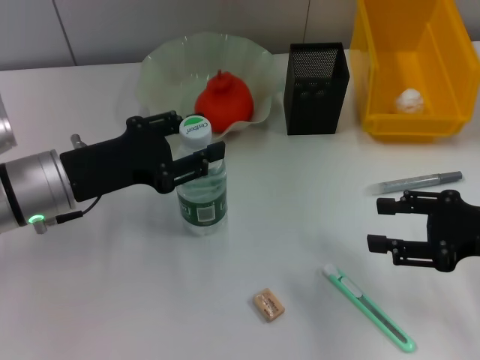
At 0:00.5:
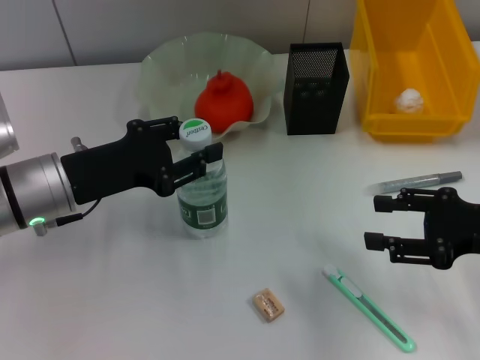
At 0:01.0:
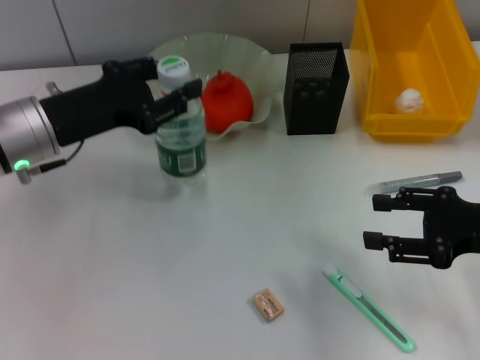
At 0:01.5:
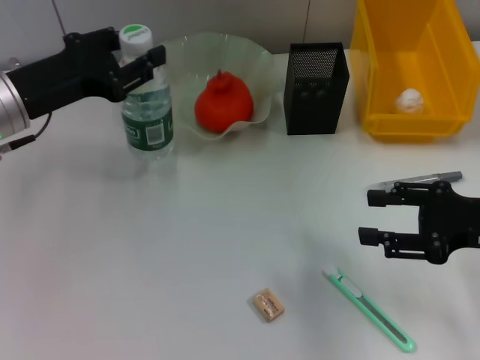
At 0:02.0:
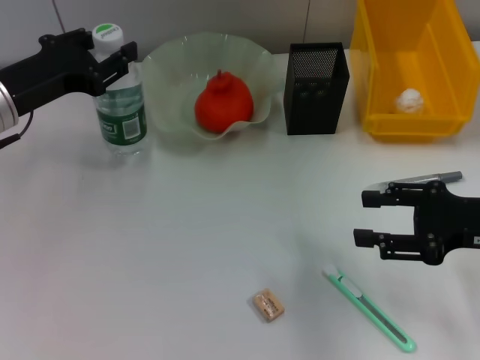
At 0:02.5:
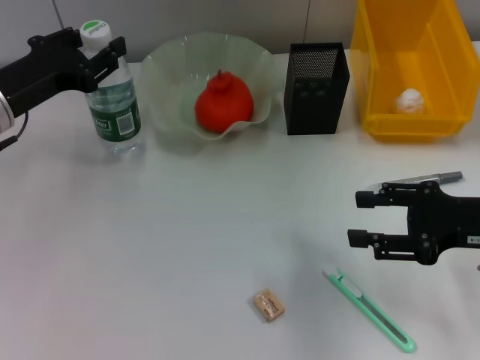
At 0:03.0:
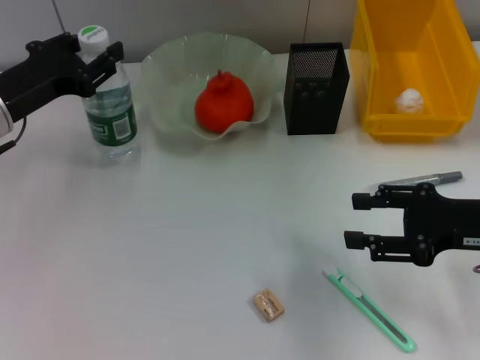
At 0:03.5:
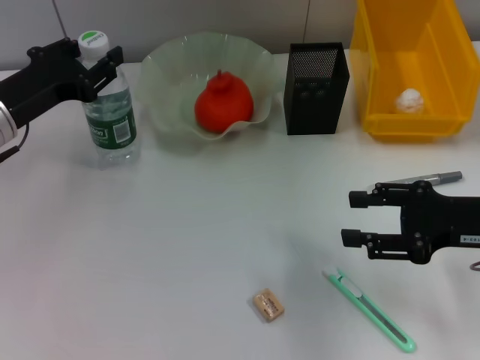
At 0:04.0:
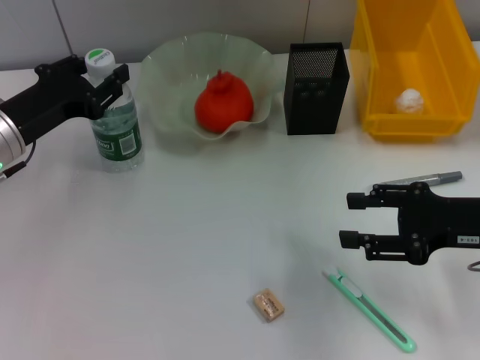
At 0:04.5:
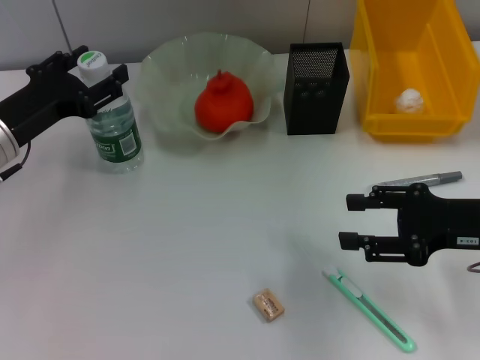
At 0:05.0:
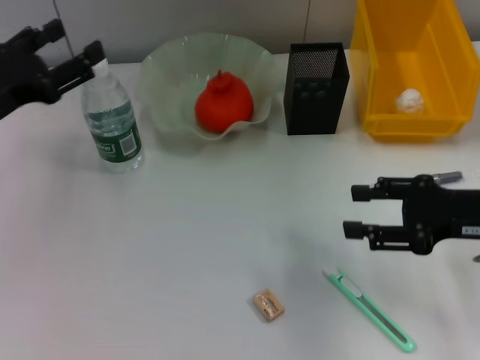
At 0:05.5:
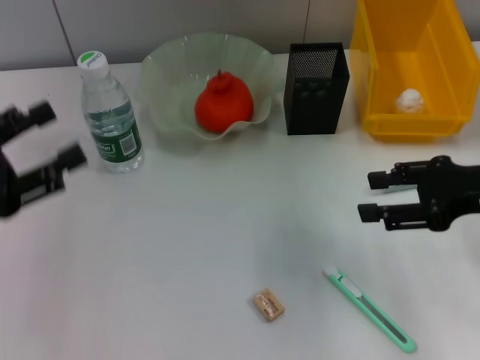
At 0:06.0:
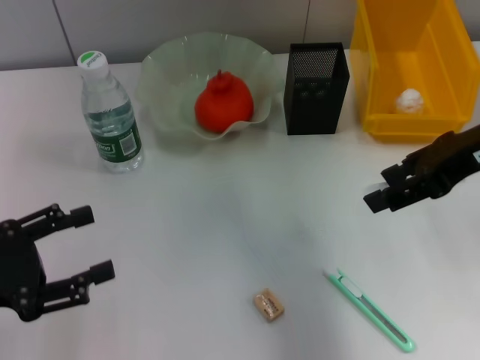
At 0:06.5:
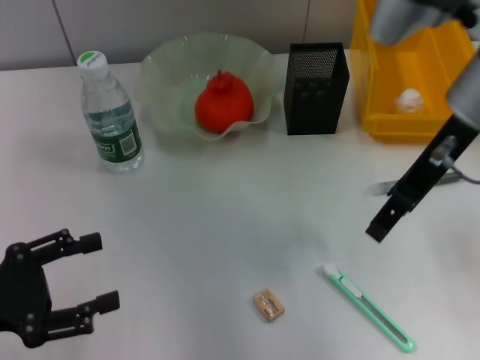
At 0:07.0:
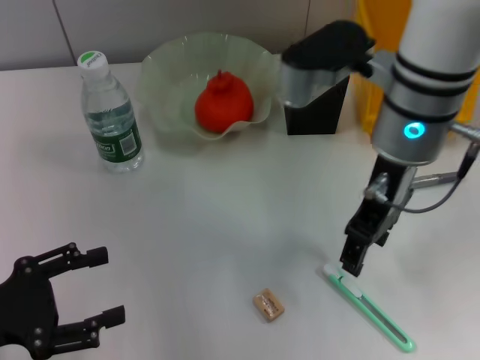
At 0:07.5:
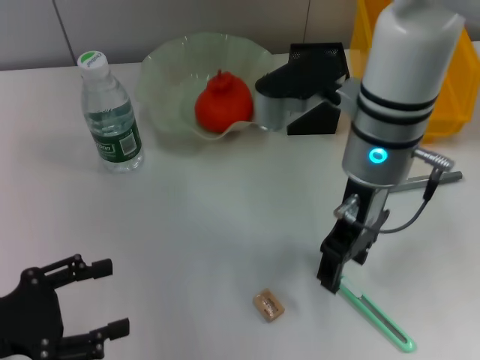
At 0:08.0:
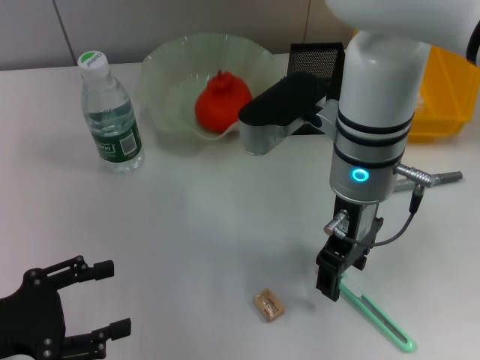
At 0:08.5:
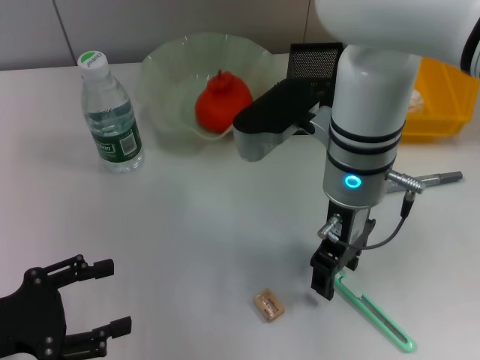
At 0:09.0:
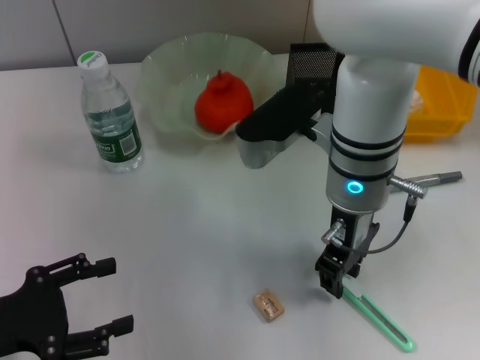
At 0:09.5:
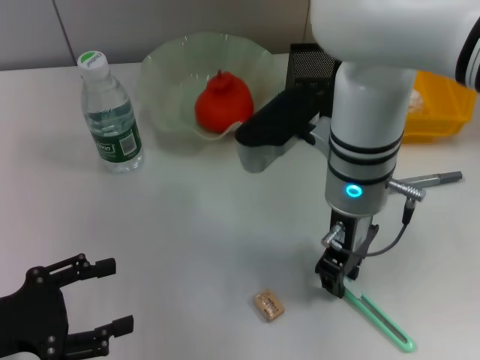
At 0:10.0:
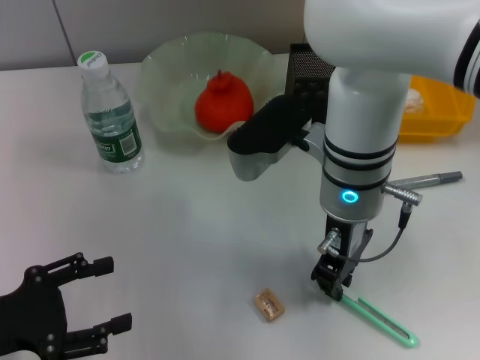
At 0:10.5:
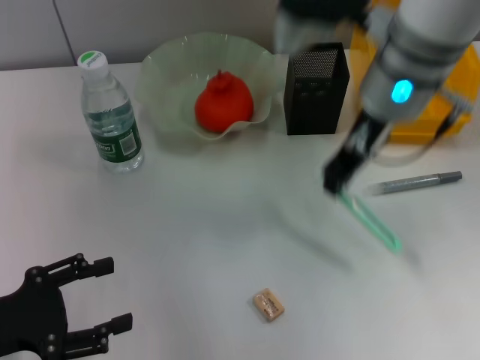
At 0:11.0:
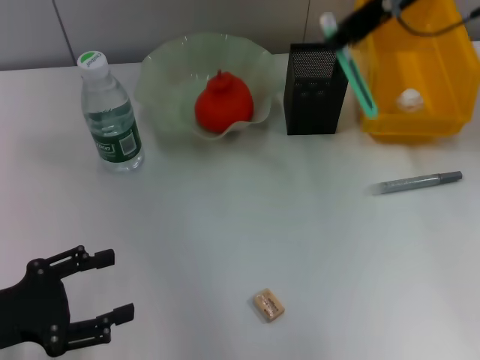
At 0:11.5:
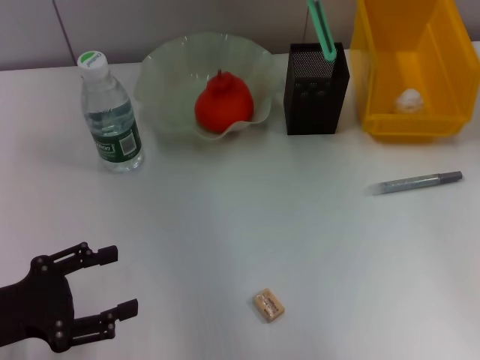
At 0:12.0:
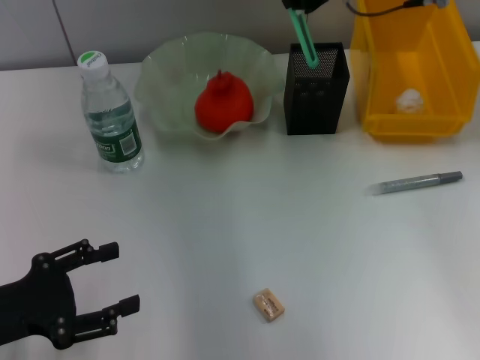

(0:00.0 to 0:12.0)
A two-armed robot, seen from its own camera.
Step, 0:01.0 - 0:04.0: Place the water bottle on the table with the left hand.
Step, 0:04.5 - 0:09.5: Grab the blue utility knife with the right hand.
0:00.0 - 0:02.0: The left gripper is displaced forward by some 5 cm.
0:02.0 - 0:04.0: The grippers make only small movements.
0:04.0 - 0:06.0: The left gripper heads backward and to the left, covering roughly 15 cm, while the right gripper shifts some 10 cm upward.
0:06.0 - 0:08.0: The right gripper shifts approximately 20 cm to the left and downward.
0:08.0 - 0:10.0: The right gripper closes.
0:10.0 - 0:12.0: The right gripper travels forward, upward and to the right by roughly 20 cm.

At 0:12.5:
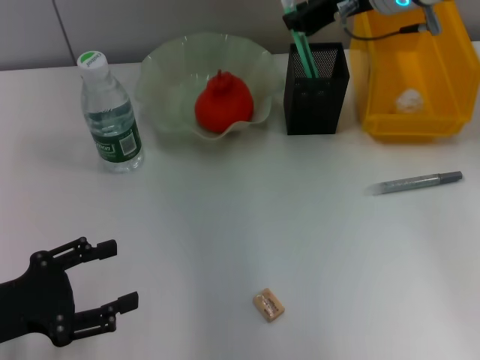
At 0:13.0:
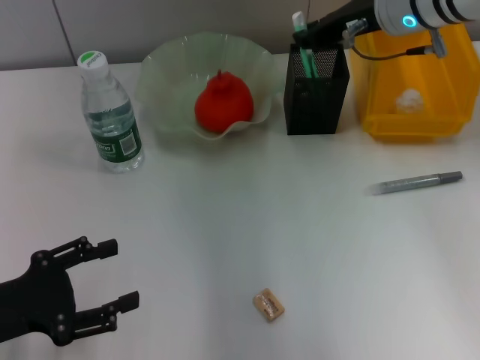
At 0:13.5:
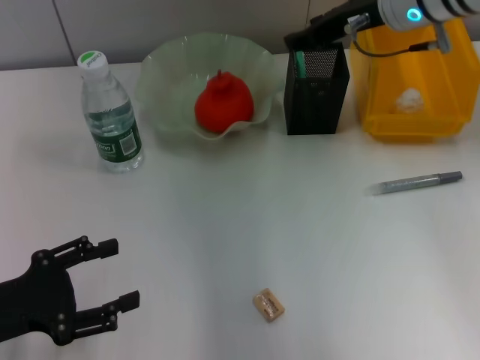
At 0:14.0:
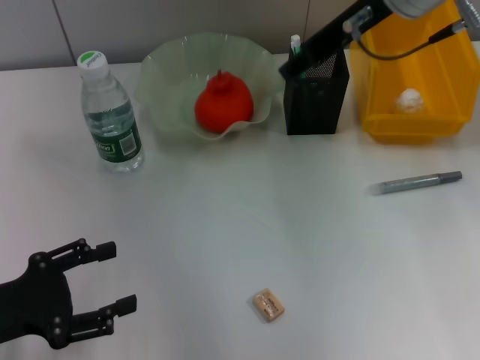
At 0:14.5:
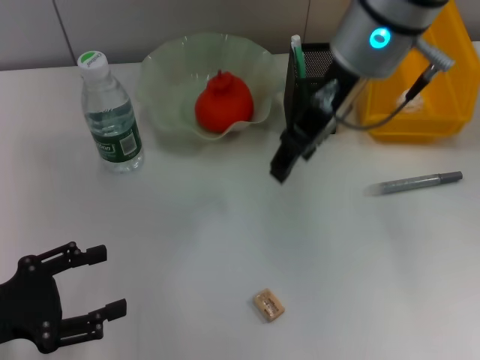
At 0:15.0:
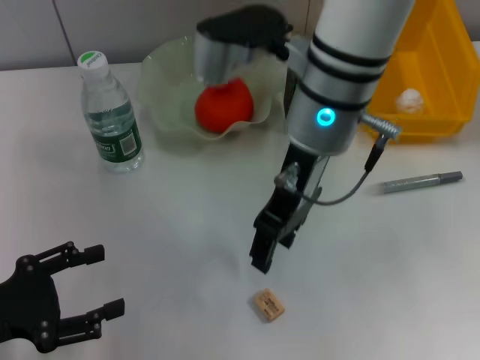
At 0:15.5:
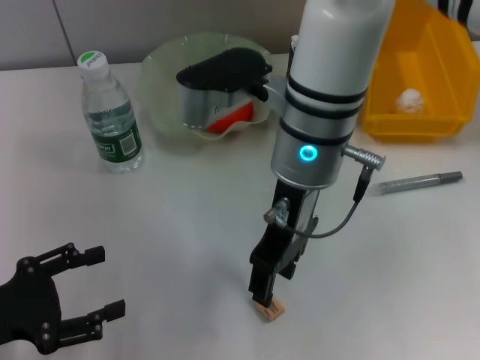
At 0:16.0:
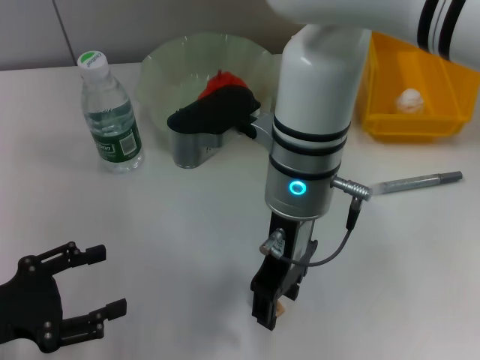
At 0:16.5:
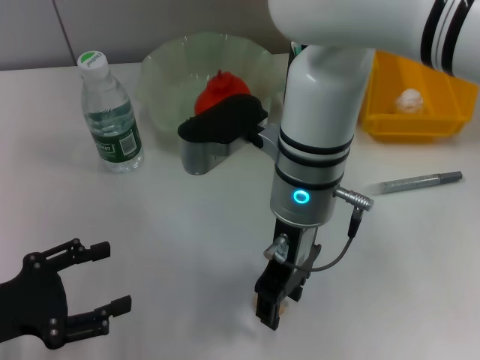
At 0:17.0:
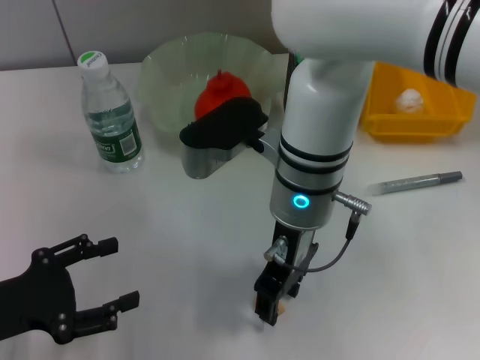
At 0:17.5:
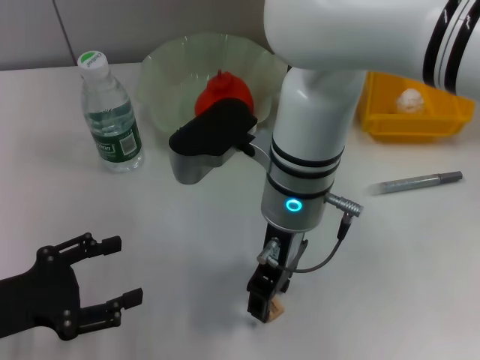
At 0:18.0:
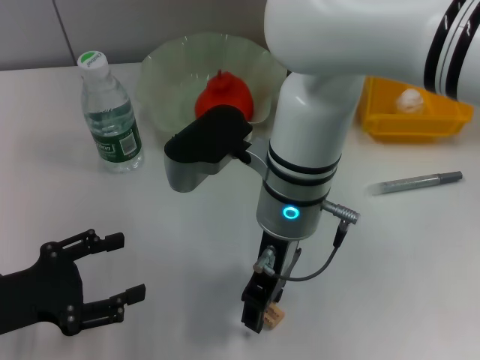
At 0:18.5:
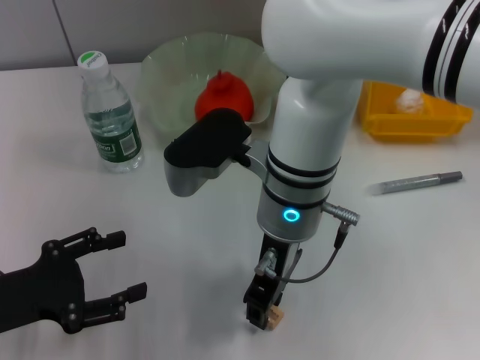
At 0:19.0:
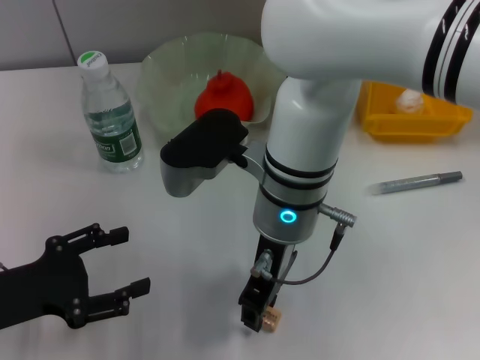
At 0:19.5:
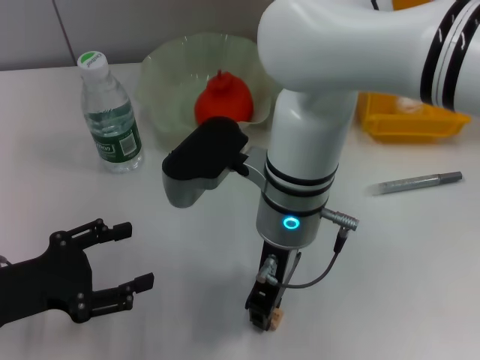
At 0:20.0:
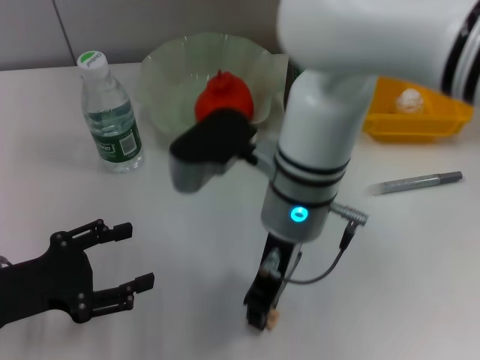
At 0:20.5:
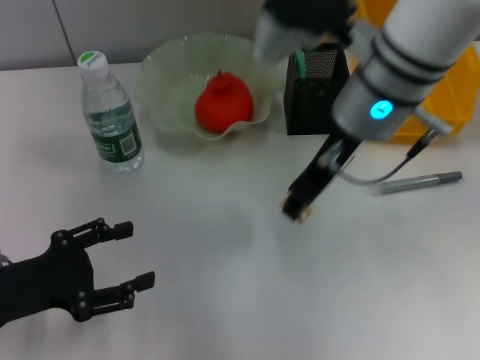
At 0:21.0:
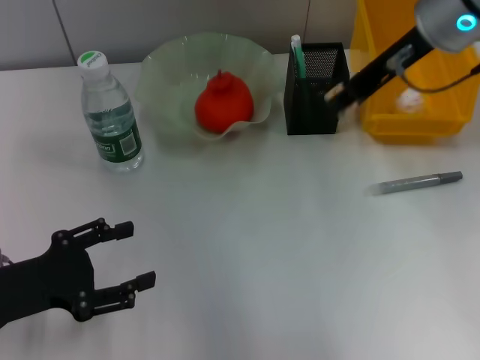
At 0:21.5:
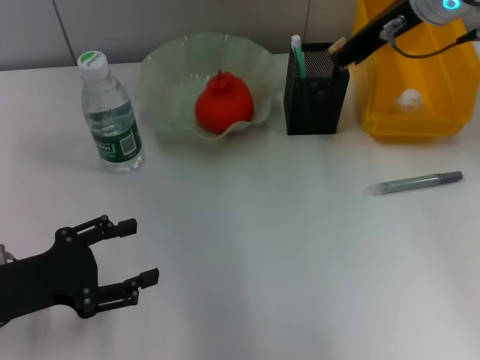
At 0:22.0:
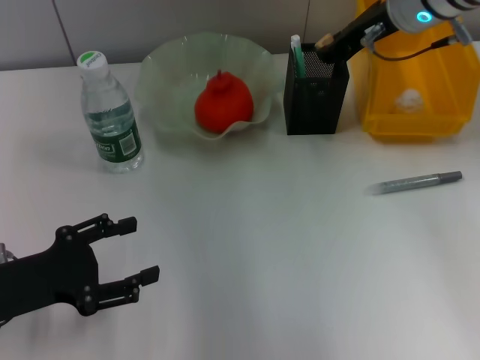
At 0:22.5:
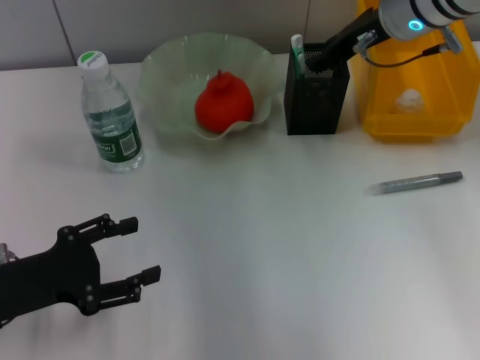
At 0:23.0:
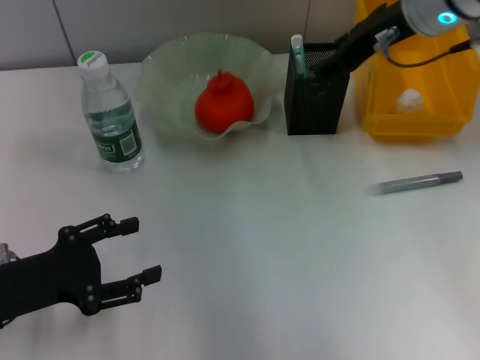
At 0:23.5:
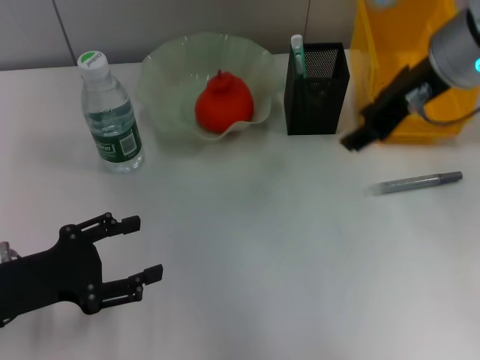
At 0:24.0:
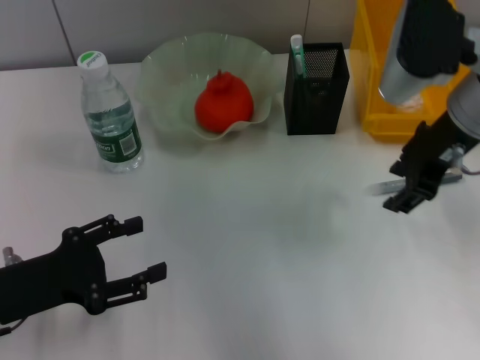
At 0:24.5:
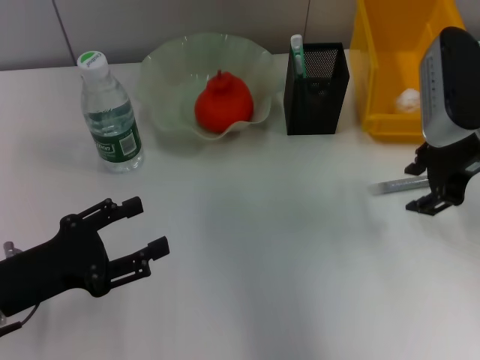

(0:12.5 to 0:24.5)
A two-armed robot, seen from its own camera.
Step, 0:13.5 - 0:19.5: Grab the eraser with the right hand.
Step, 0:20.0 - 0:22.0: Put the eraser into the pen holder with the right hand.
0:12.5 - 0:14.5: The right gripper is displaced backward and to the left by some 10 cm, and opens up.
0:14.5 - 0:16.5: The right gripper goes some 10 cm downward and to the left.
0:18.5 - 0:20.5: The right gripper goes some 10 cm to the right and upward, and closes up.
0:20.5 - 0:22.5: The right gripper goes some 10 cm forward and to the right.
0:22.5 - 0:24.5: The right gripper is displaced backward and to the right by approximately 10 cm.

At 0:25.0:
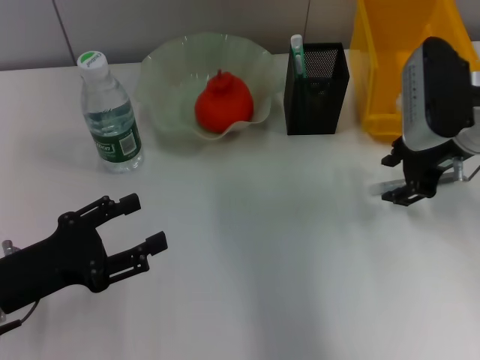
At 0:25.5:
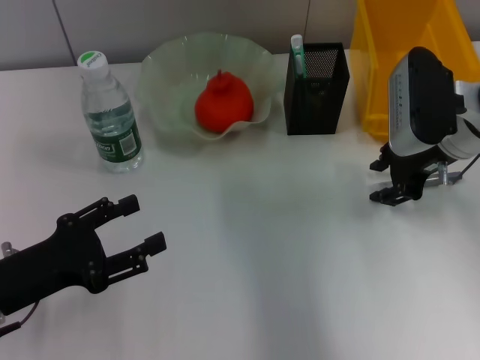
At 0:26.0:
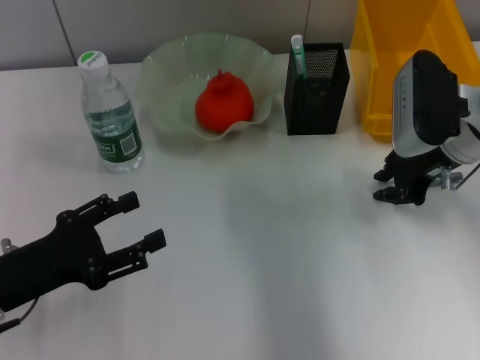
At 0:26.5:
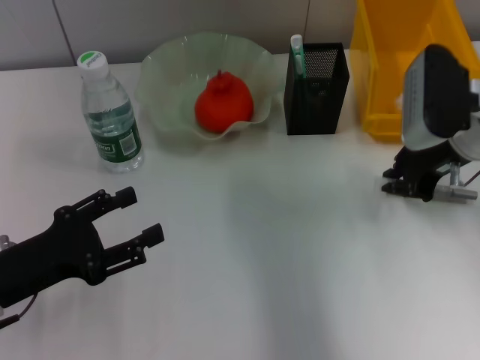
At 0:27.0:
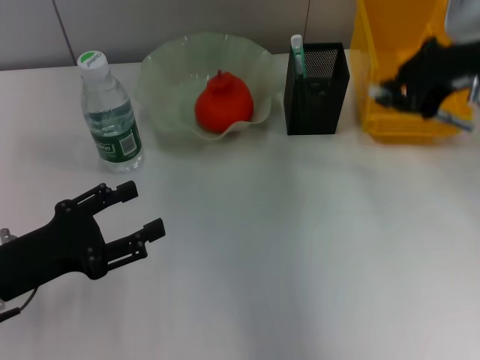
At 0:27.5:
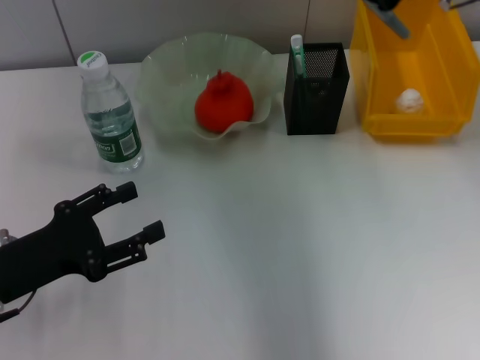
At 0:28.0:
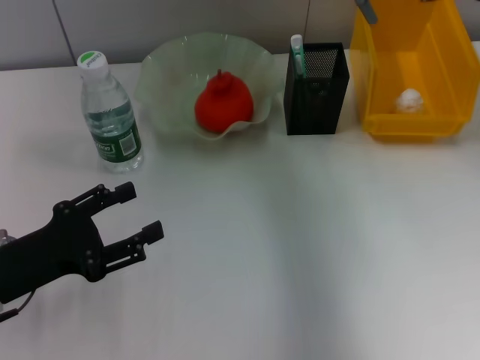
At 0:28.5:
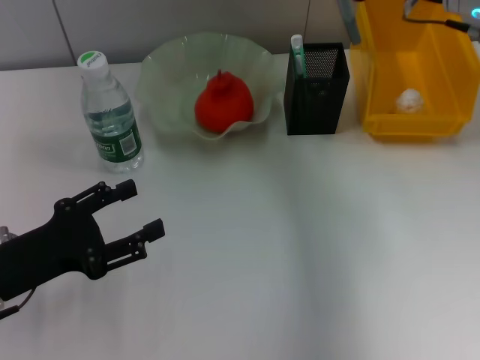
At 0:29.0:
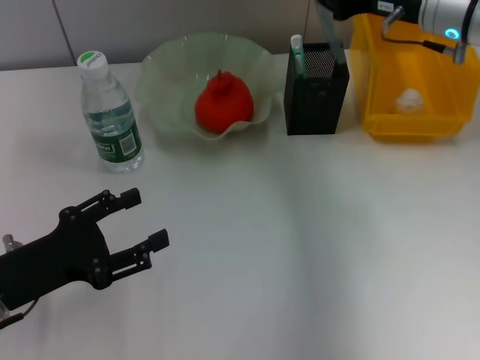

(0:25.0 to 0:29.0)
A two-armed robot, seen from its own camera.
0:25.0 - 0:27.0: The right gripper is displaced upward by some 10 cm, and closes.
0:27.0 - 0:29.0: The right gripper heads forward and downward, covering roughly 10 cm.
